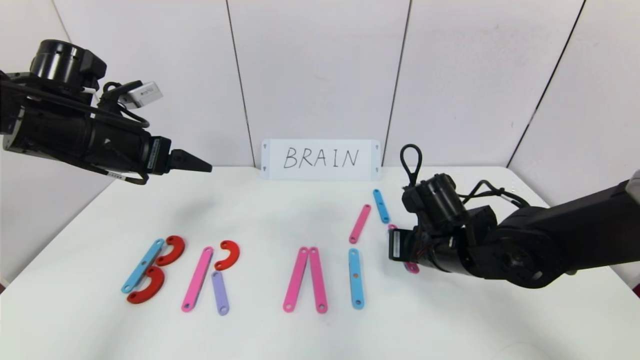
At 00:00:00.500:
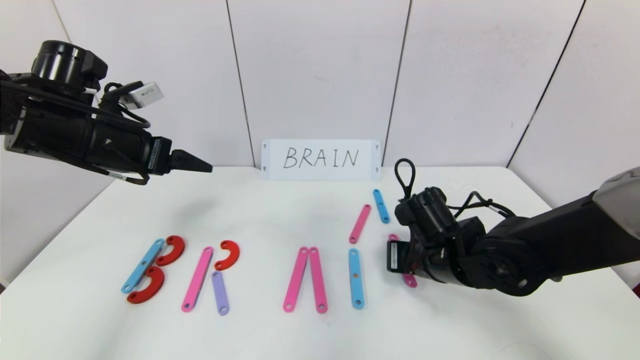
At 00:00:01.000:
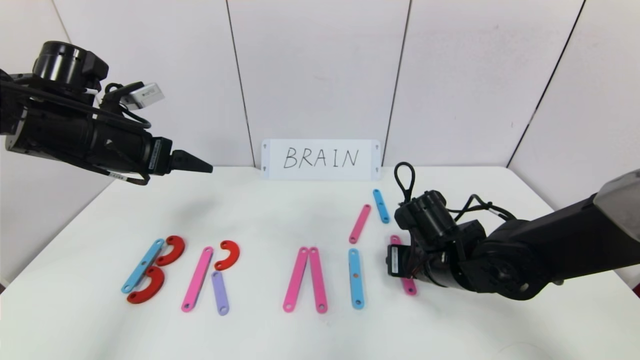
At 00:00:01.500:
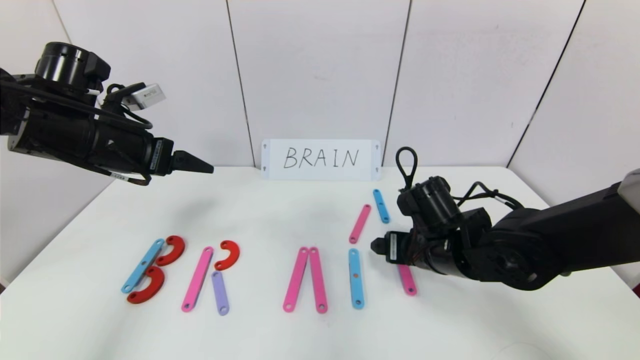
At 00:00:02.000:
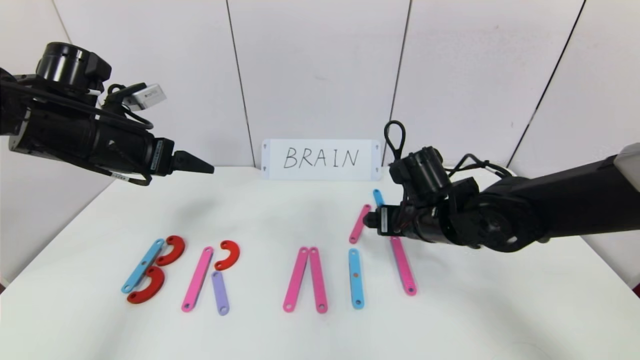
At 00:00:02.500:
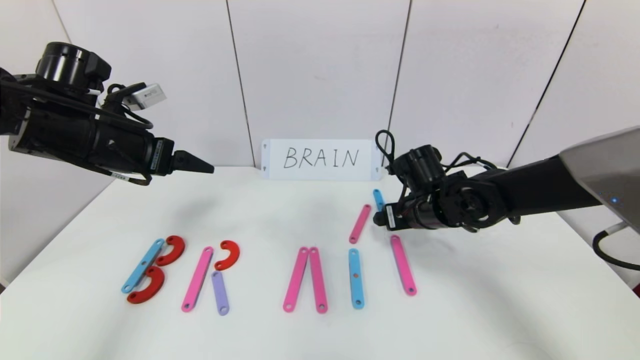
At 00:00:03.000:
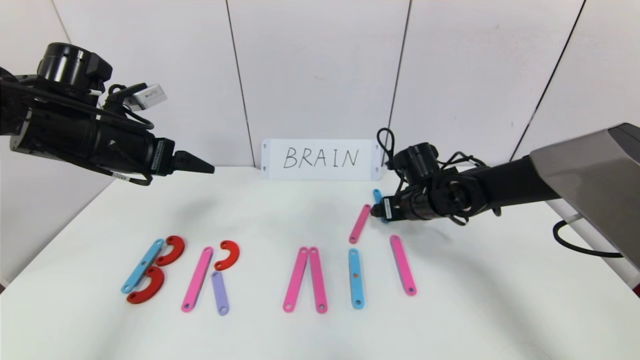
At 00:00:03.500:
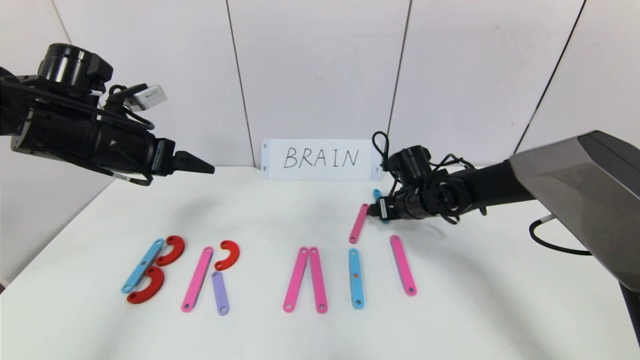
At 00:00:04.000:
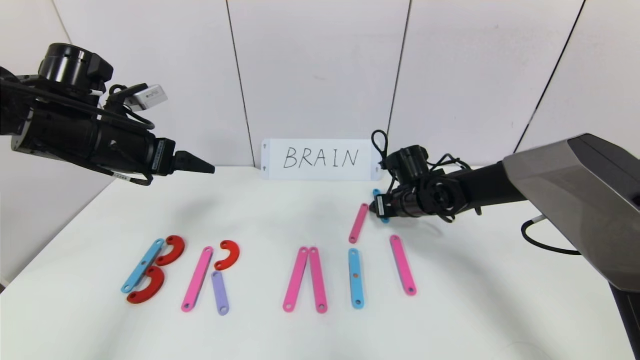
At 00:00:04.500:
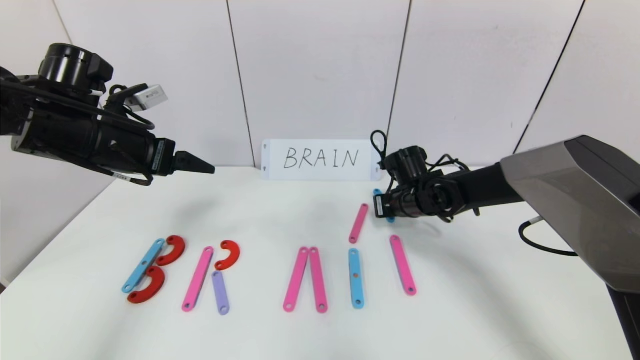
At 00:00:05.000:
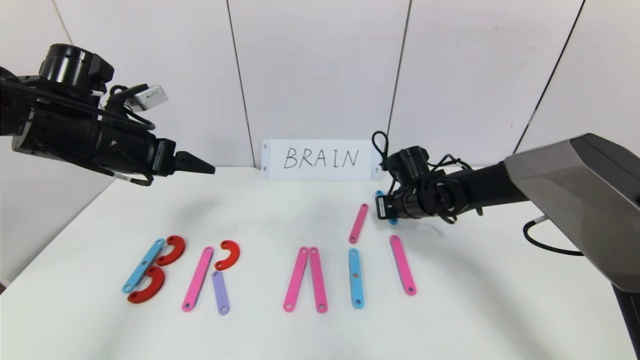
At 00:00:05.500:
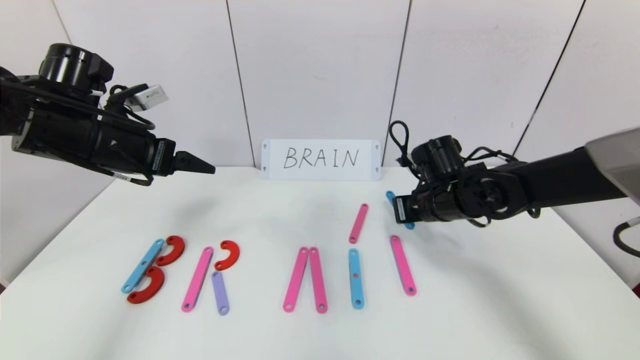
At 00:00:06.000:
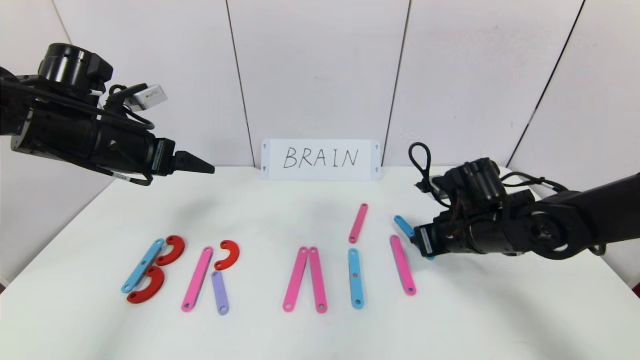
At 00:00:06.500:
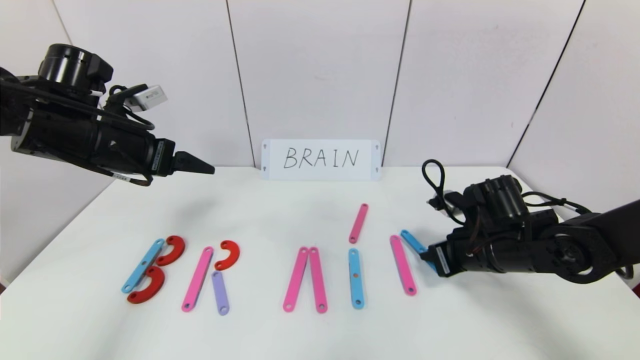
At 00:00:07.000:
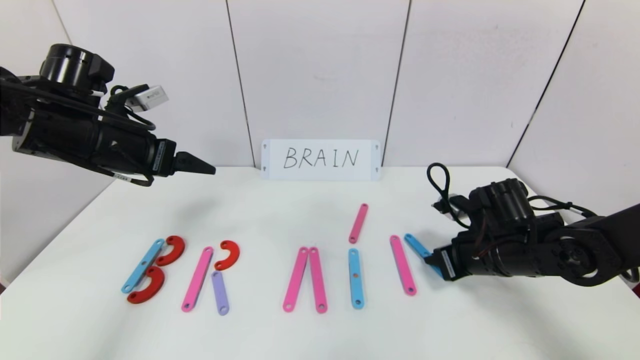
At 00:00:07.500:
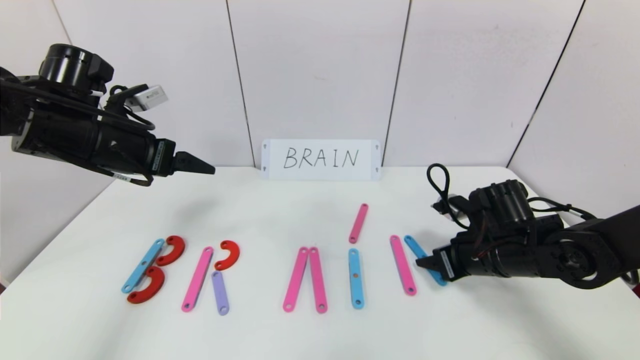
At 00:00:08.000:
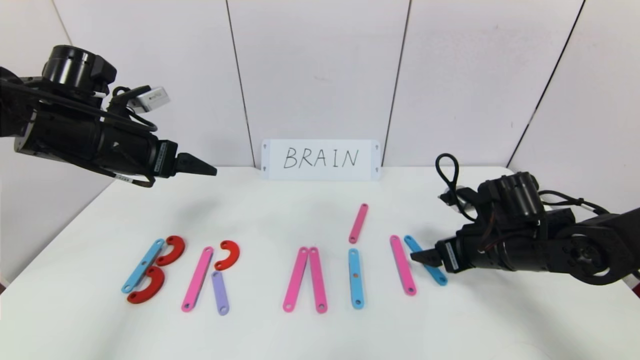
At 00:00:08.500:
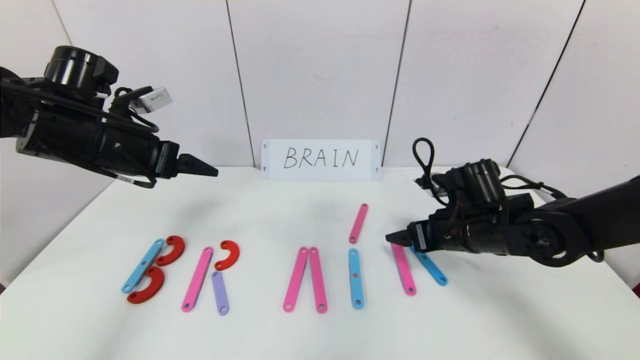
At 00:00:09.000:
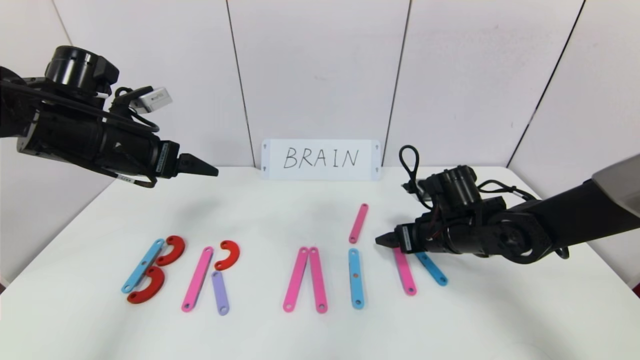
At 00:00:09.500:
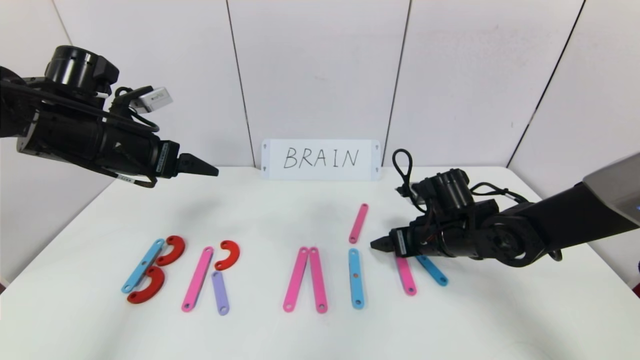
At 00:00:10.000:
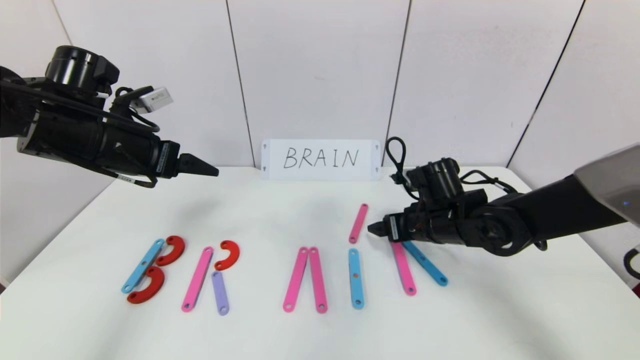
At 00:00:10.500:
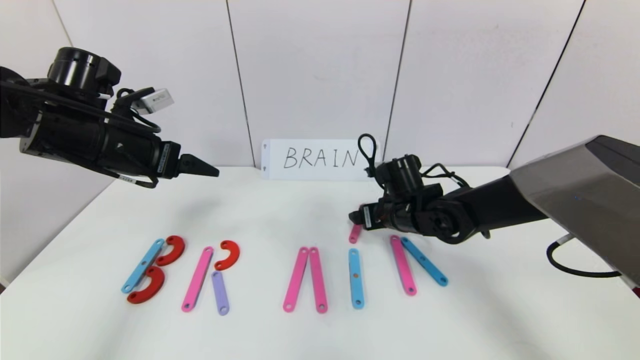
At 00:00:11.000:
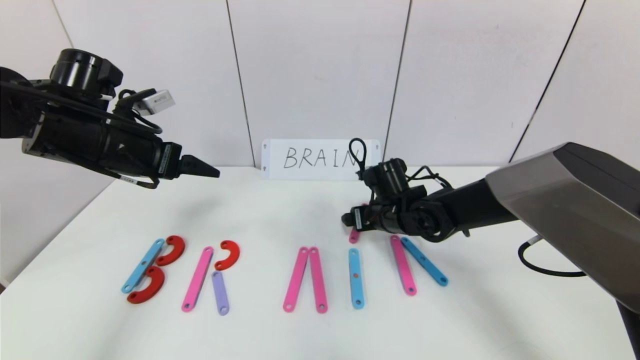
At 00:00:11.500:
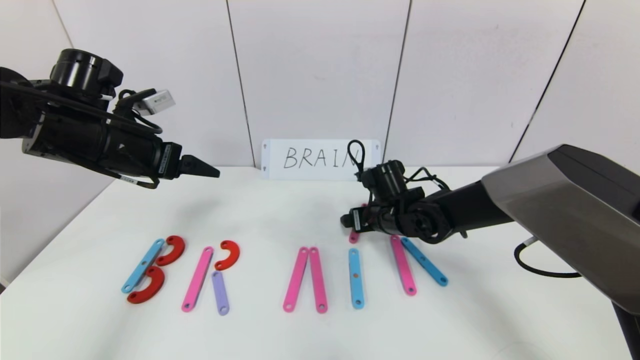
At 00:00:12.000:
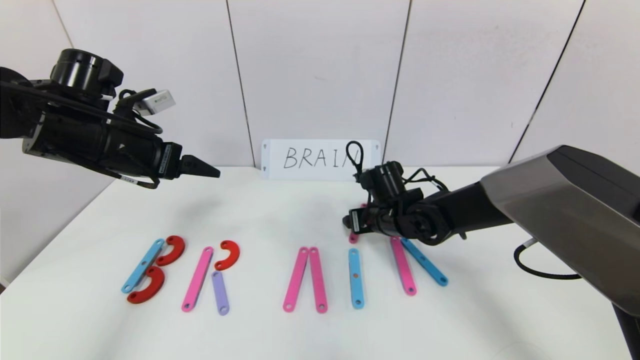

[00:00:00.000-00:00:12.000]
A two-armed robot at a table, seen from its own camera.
Task of the whole recording: rearrange the word baai as brain.
00:00:00.000 to 00:00:02.000: The right gripper opens up.
00:00:02.000 to 00:00:04.000: The right gripper is displaced forward and downward by about 10 cm.
00:00:04.000 to 00:00:06.000: The right gripper is displaced backward and to the right by roughly 10 cm, and closes its fingers.
00:00:06.000 to 00:00:08.000: The right gripper opens.
00:00:08.000 to 00:00:10.000: The right gripper heads to the left and forward, covering some 10 cm.
00:00:10.000 to 00:00:12.000: The right gripper goes approximately 5 cm to the left.

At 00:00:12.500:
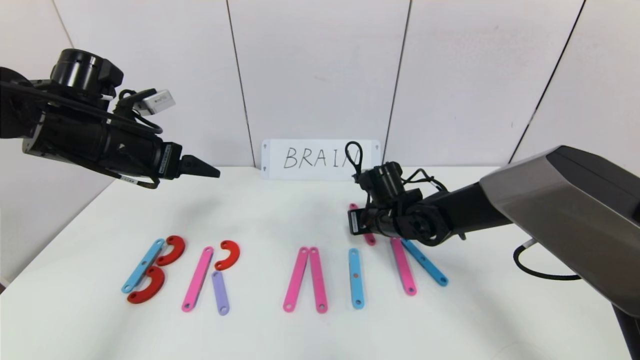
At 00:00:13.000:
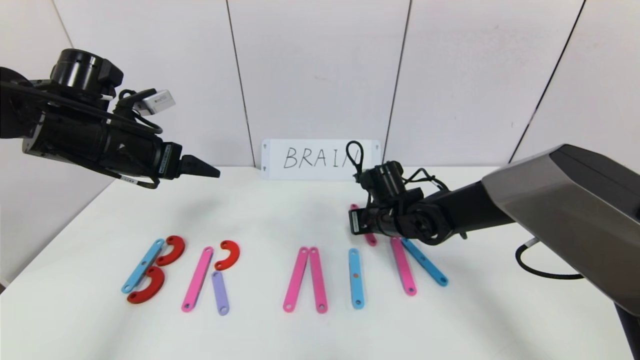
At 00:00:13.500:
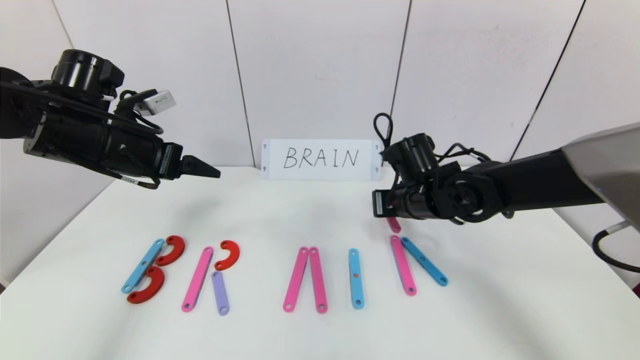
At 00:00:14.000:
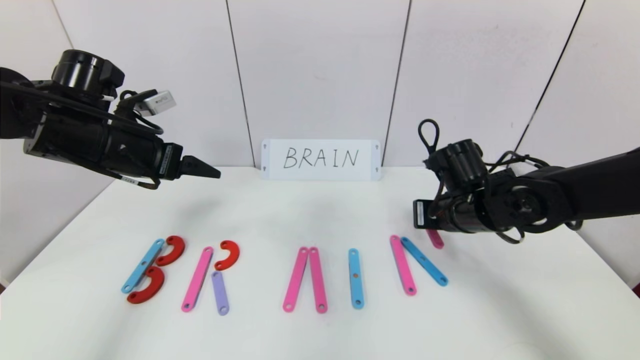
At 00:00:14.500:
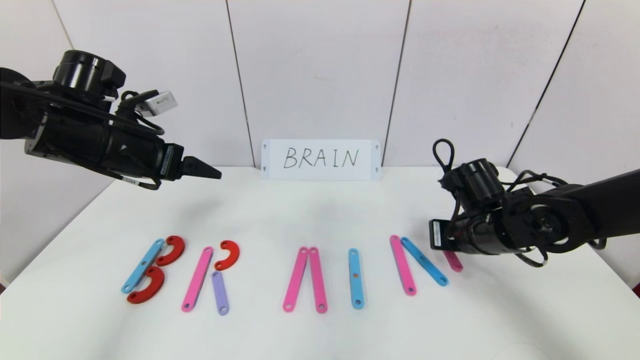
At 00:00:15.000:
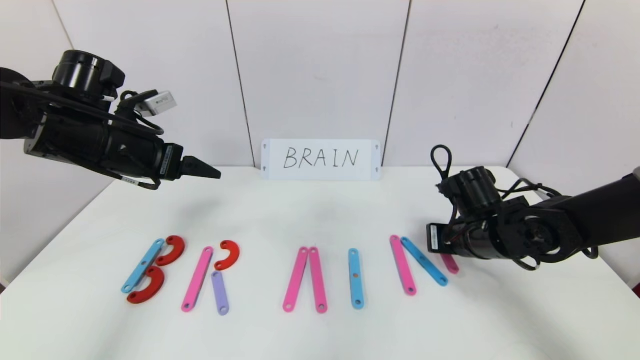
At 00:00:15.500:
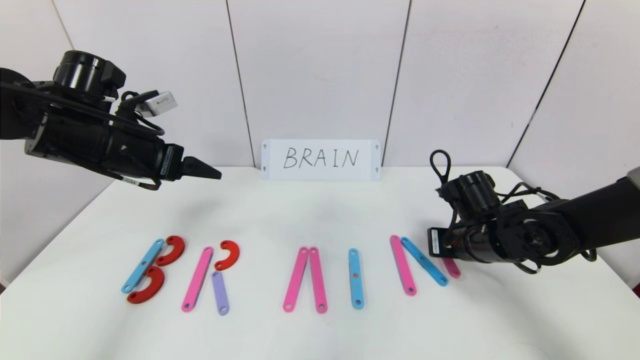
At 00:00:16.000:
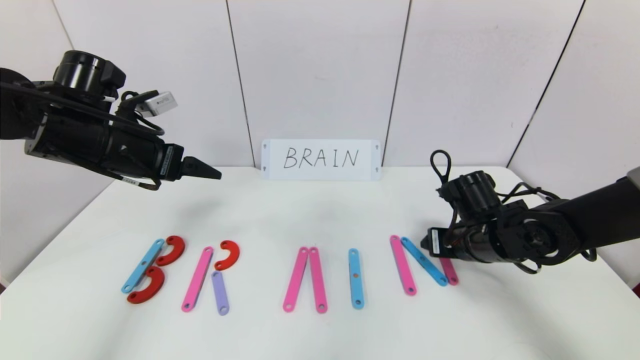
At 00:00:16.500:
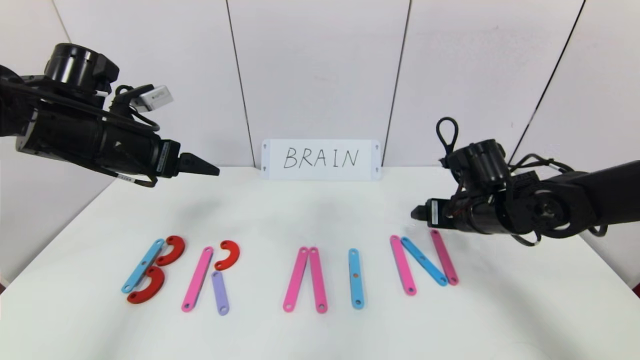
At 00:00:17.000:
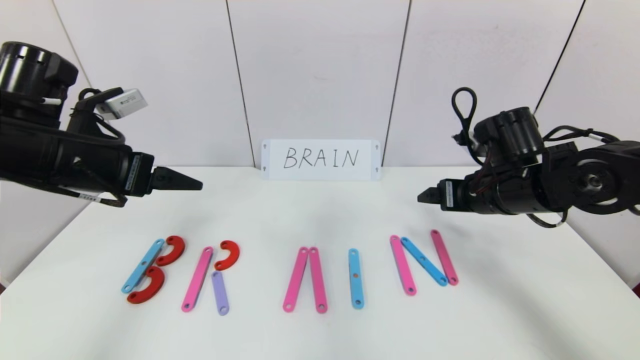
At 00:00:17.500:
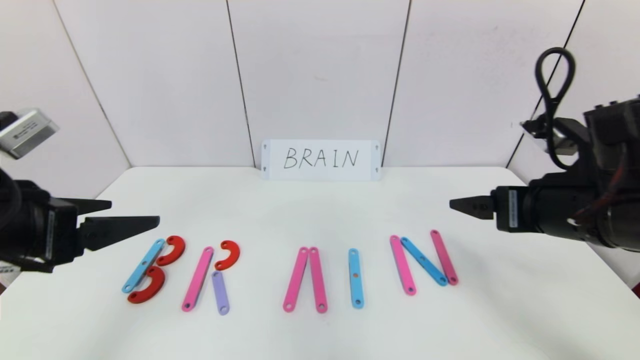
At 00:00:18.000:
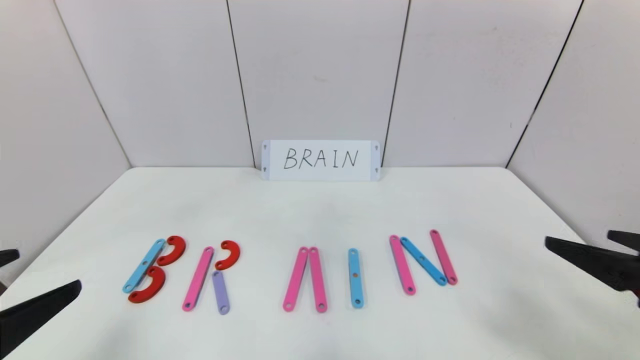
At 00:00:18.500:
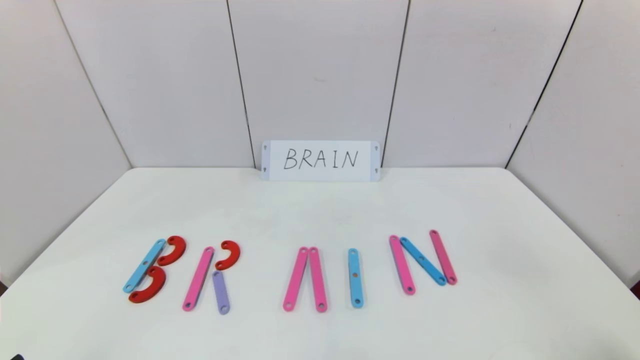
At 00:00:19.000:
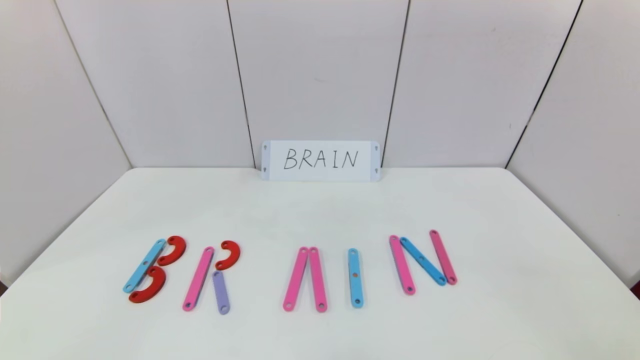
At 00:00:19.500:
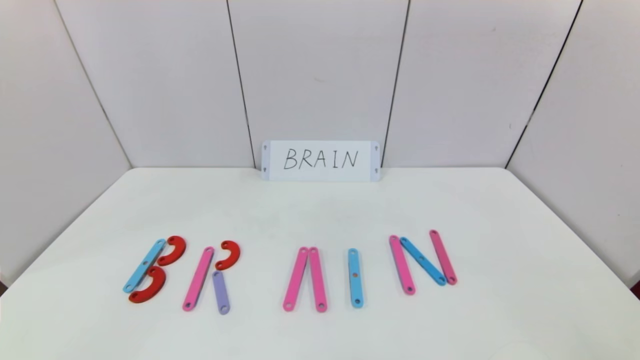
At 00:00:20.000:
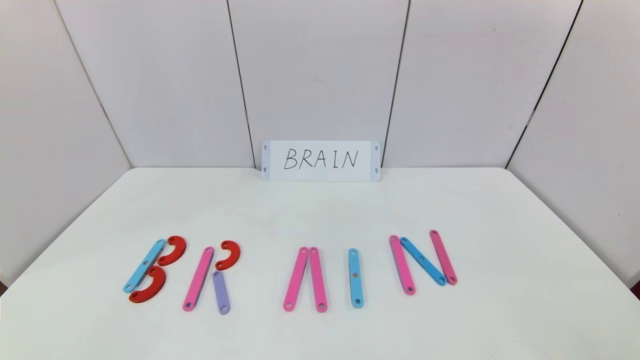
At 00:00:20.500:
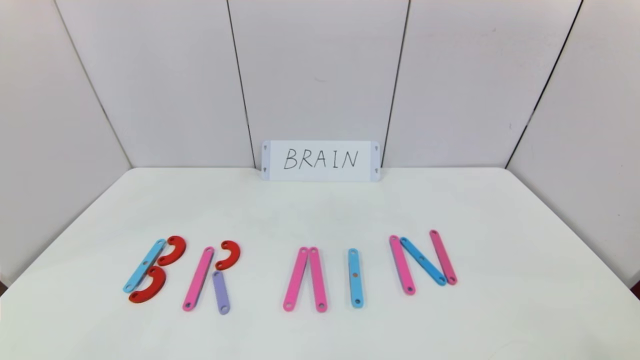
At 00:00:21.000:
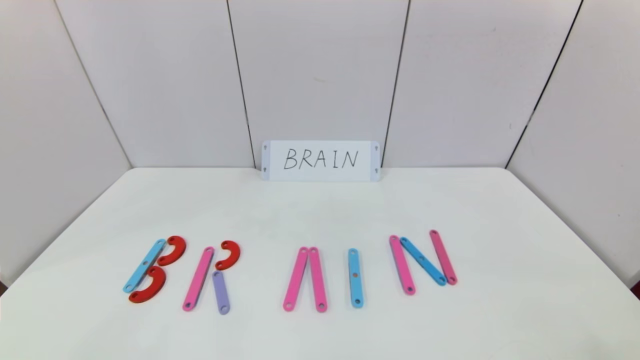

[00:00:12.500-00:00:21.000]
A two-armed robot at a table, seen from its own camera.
Task of the whole recording: rearrange the word baai as brain.
Step, 00:00:12.500 to 00:00:16.000: Place the character N after character I.
00:00:12.500 to 00:00:14.500: The right gripper moves to the right and backward, about 15 cm.
00:00:14.500 to 00:00:16.500: The right gripper opens.
00:00:16.500 to 00:00:19.000: The two grippers go some 35 cm backward.
